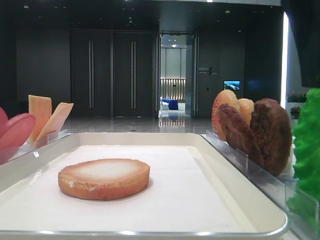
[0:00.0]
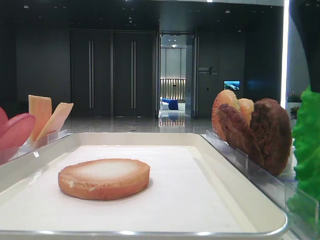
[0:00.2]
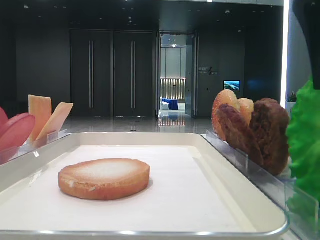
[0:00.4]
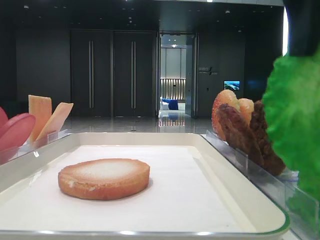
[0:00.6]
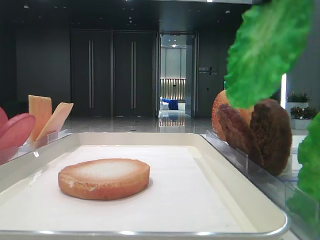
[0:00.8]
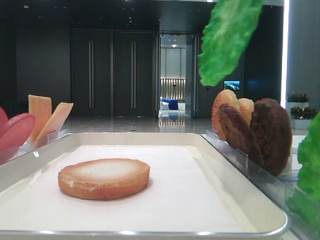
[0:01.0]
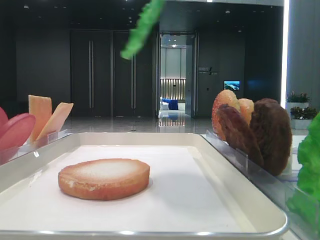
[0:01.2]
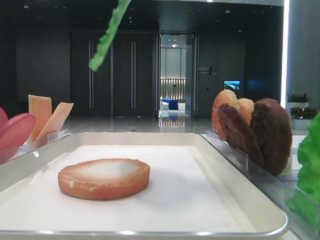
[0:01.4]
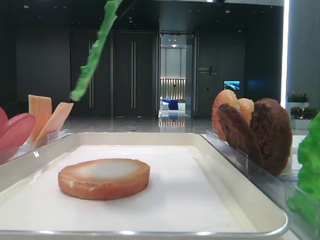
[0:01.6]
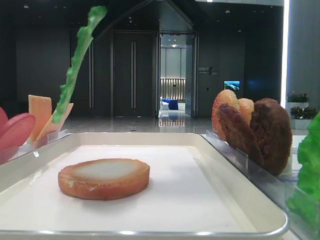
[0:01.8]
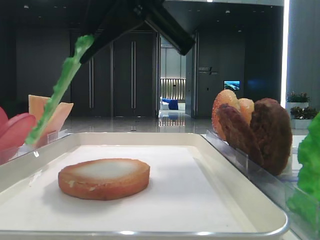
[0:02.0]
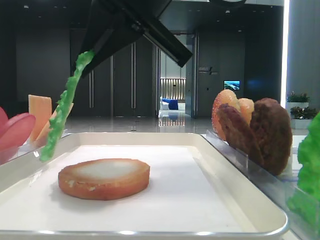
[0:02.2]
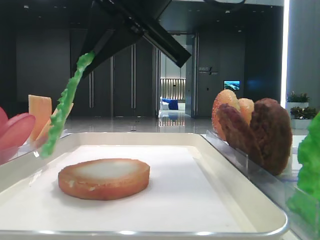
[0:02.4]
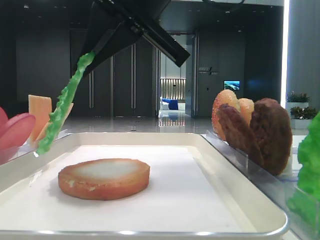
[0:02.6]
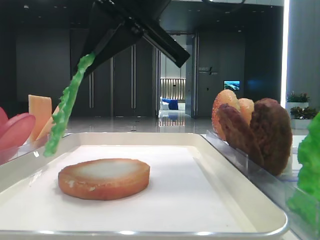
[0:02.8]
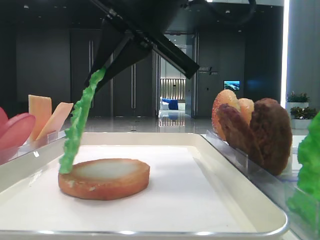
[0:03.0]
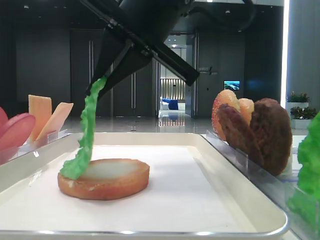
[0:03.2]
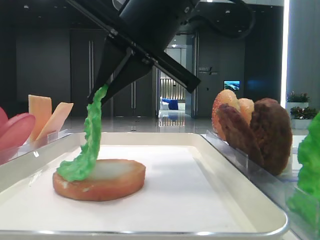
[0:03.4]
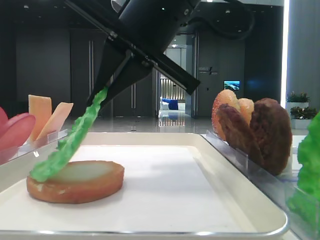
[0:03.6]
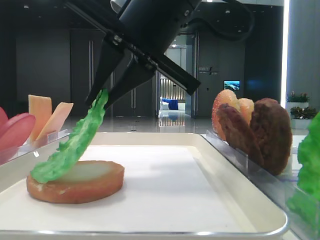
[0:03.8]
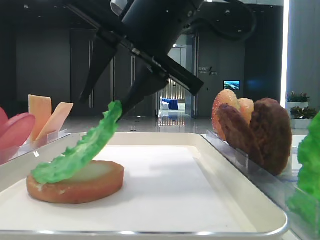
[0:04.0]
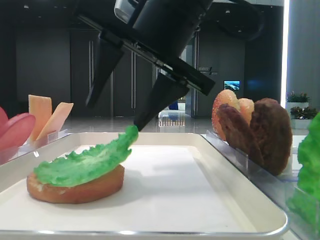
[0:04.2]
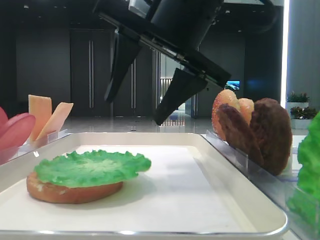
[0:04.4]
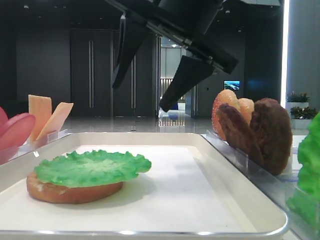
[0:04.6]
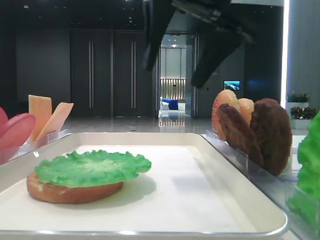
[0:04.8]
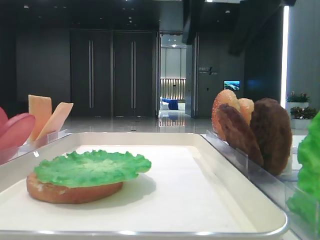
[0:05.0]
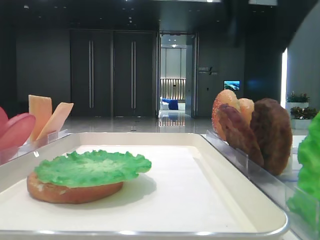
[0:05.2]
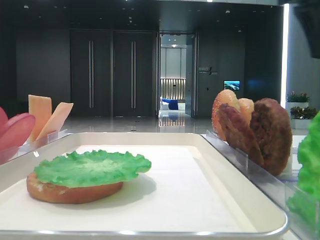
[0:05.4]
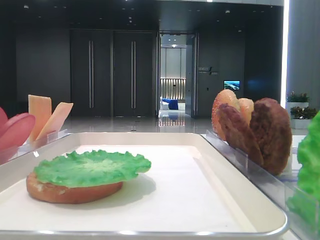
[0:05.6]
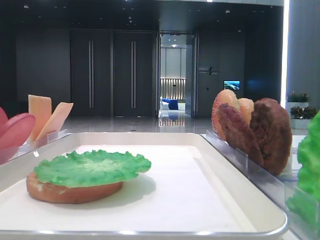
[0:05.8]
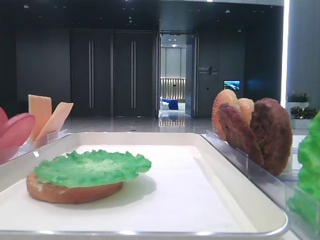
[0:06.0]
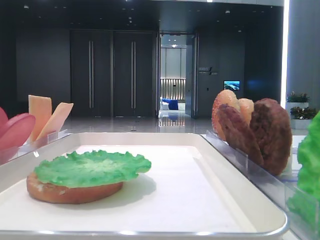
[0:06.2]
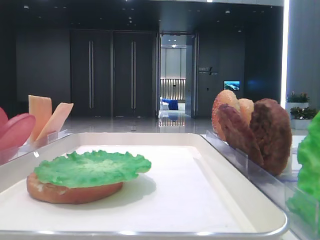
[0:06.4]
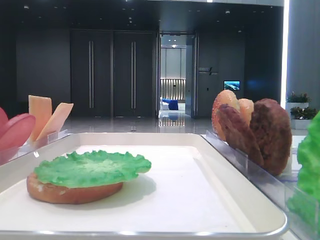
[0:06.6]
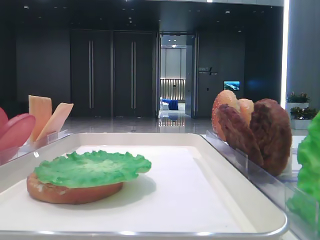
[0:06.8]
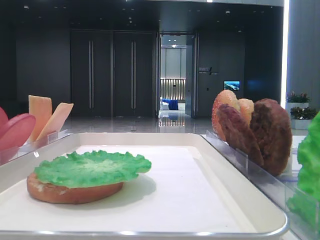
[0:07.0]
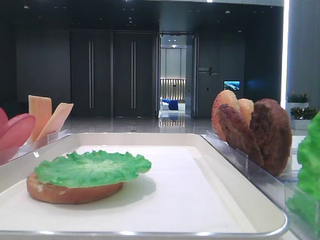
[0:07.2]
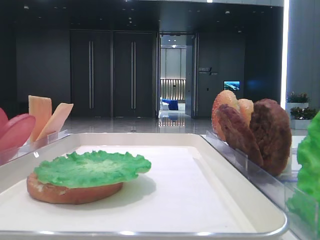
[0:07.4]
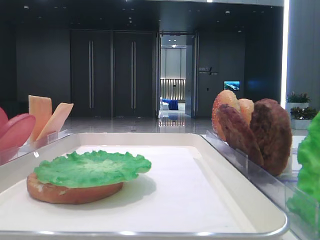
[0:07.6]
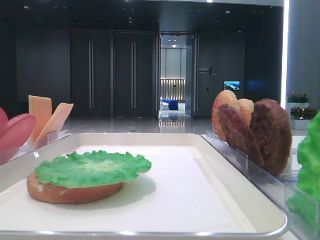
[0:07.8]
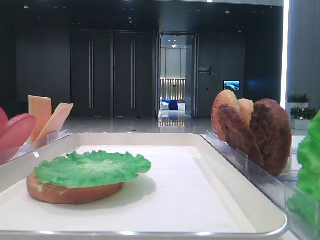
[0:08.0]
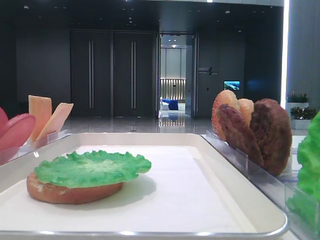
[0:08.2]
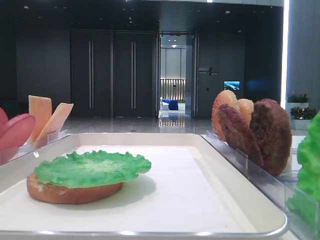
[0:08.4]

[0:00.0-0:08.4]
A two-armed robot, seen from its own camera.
Step, 0:00.4 to 0:04.2: Place the lettuce leaf on the bottom bread with the right hand.
0:00.0 to 0:01.4: The right gripper heads upward and to the left, covering roughly 10 cm, and closes up.
0:01.4 to 0:02.8: The right gripper shifts roughly 10 cm downward and to the left.
0:02.8 to 0:04.2: The right gripper opens.
0:04.2 to 0:05.6: The right gripper is displaced to the right by roughly 30 cm.

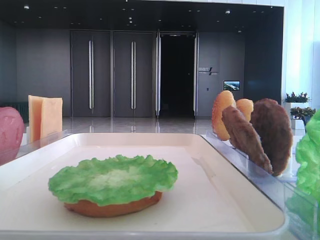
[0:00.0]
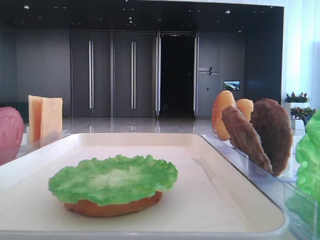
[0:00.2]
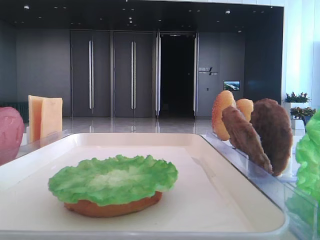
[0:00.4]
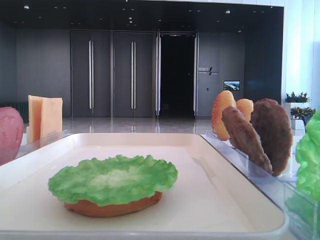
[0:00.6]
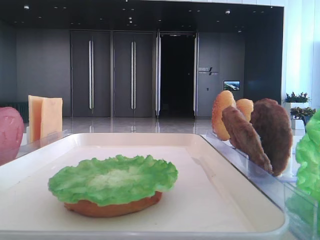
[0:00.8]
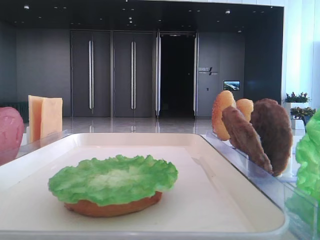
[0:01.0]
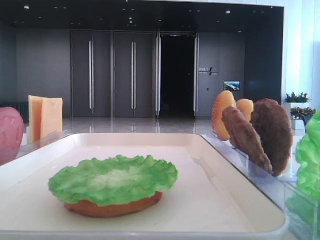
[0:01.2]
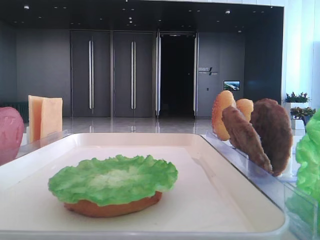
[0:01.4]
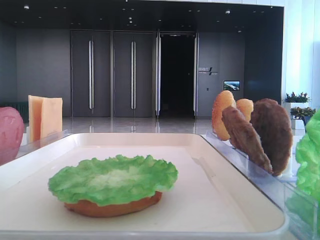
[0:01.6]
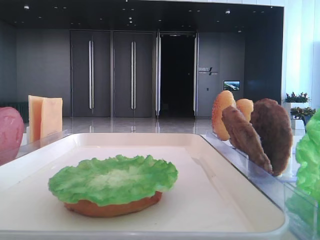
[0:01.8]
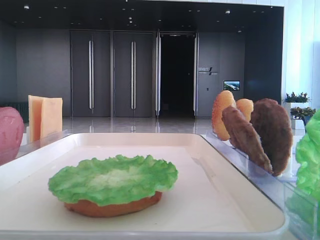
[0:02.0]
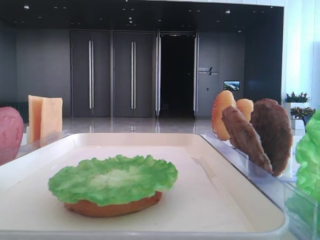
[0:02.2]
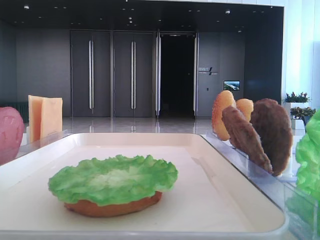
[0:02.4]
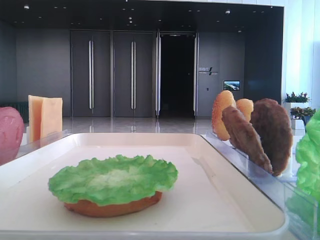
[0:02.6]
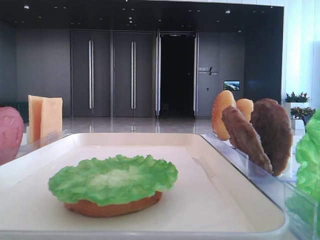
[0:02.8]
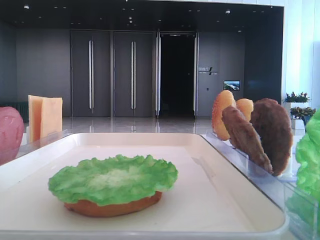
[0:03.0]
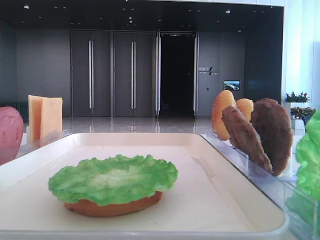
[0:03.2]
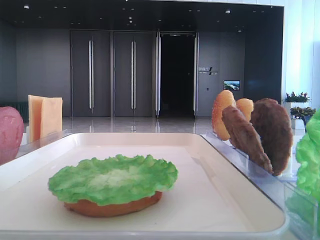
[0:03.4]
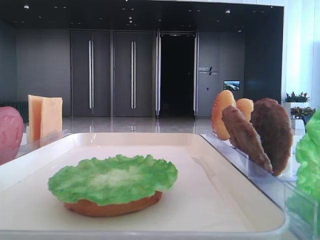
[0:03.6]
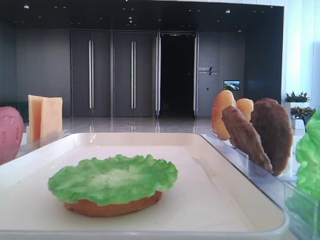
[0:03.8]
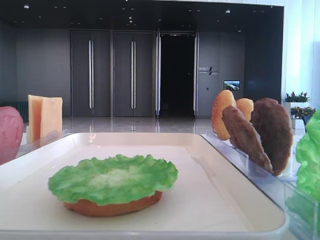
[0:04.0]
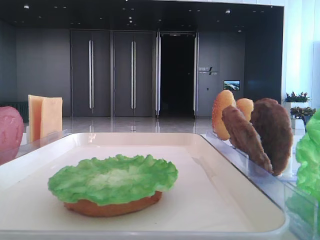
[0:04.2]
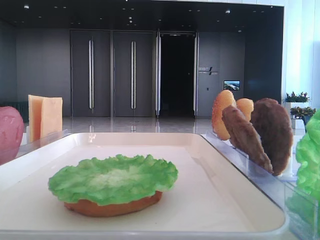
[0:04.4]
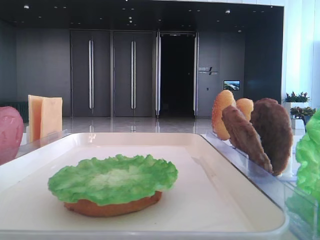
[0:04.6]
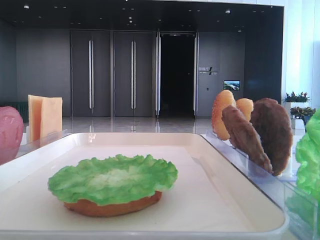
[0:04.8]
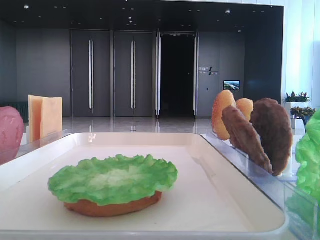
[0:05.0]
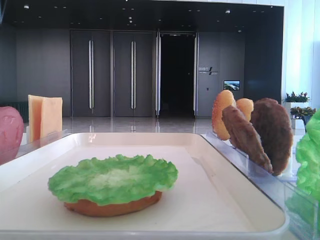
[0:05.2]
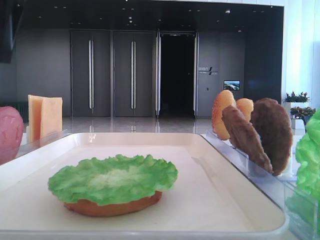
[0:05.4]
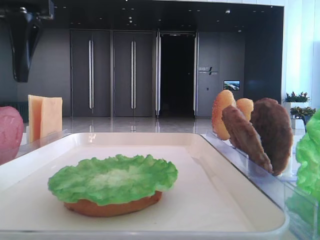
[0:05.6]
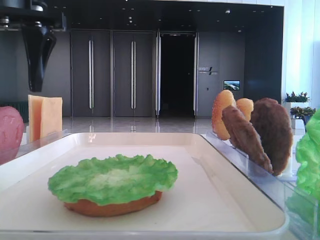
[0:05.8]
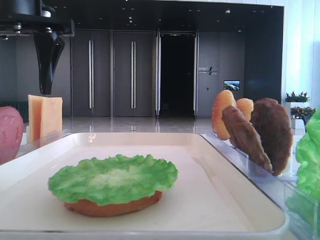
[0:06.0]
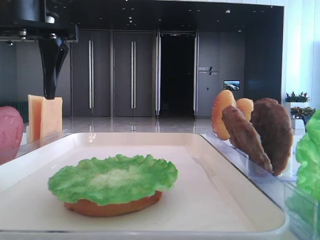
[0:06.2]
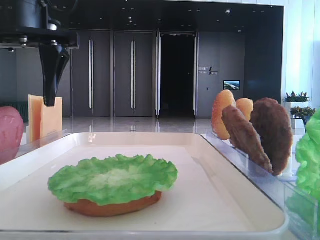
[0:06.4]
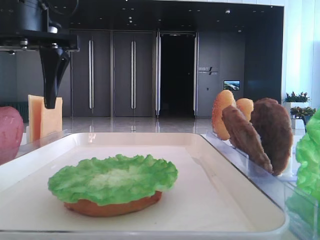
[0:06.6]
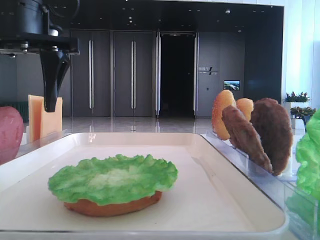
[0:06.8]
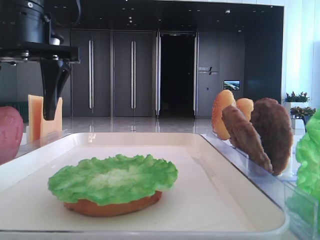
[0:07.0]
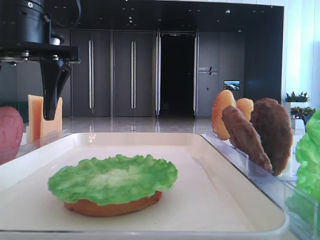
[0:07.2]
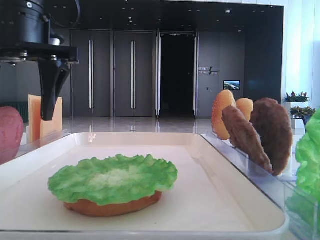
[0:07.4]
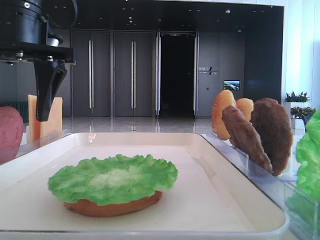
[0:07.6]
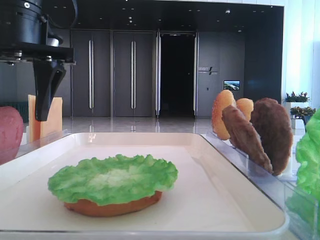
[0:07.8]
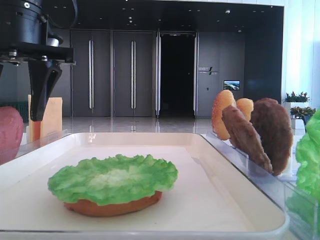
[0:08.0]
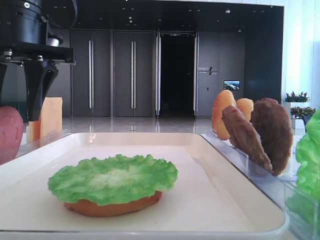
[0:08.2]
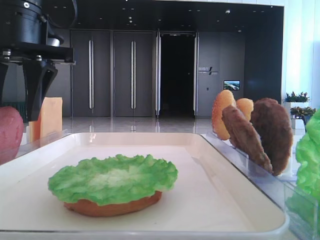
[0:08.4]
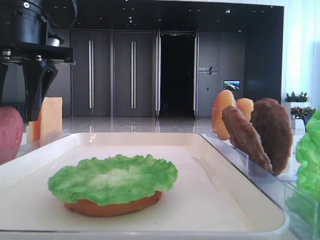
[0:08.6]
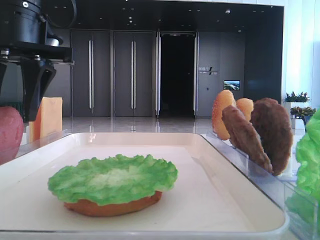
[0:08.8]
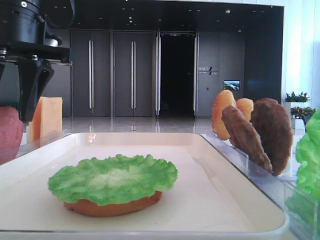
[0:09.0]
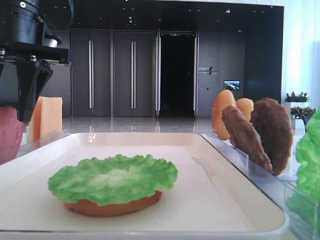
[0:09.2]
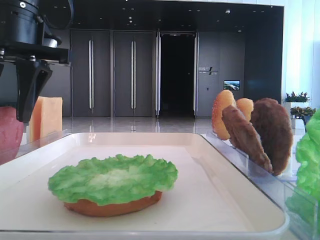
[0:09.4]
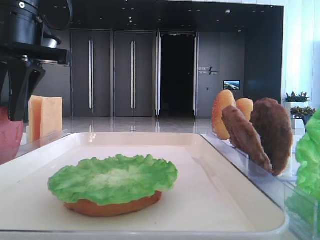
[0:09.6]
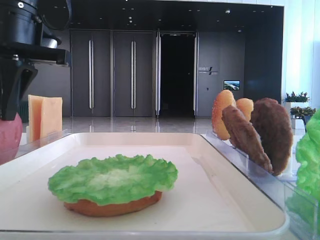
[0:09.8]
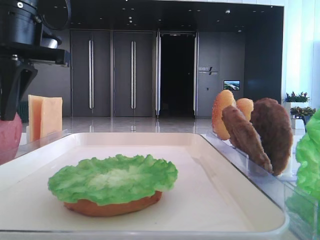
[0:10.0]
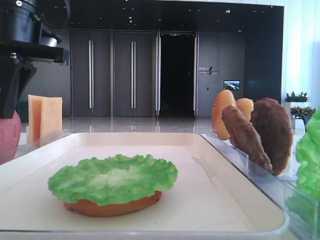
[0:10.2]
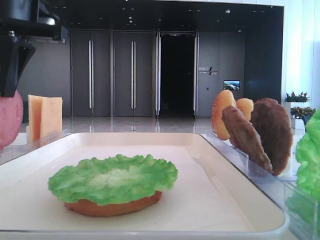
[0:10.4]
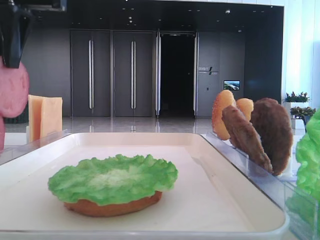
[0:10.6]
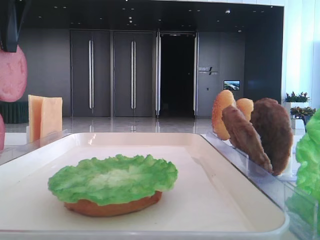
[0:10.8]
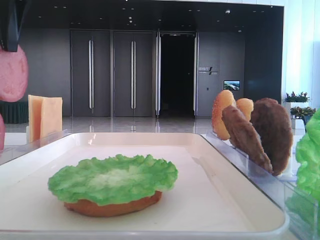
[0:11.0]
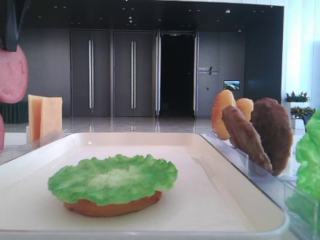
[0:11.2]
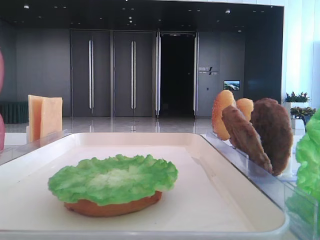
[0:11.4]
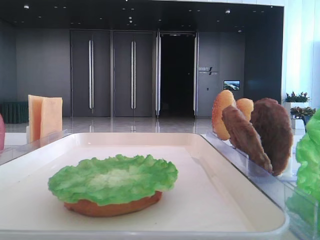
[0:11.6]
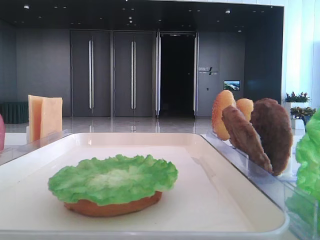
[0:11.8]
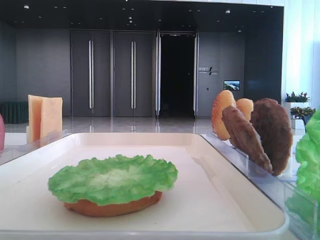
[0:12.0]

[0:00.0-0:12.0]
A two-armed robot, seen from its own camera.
Step, 0:00.0 to 0:10.0: Pick up the tomato slice with the left hand.
0:04.4 to 0:06.0: The left gripper moves to the right and downward, some 15 cm.
0:06.0 to 0:07.6: The grippers make only small movements.
0:07.6 to 0:09.0: The left gripper closes up.
0:09.0 to 0:10.4: The left gripper closes up.
0:10.4 to 0:12.0: The left gripper heads backward and upward, covering approximately 15 cm.

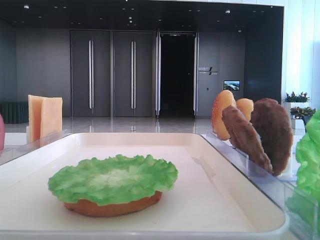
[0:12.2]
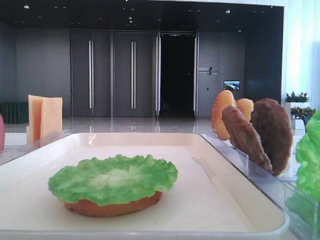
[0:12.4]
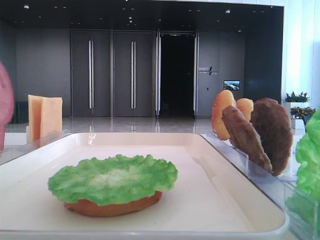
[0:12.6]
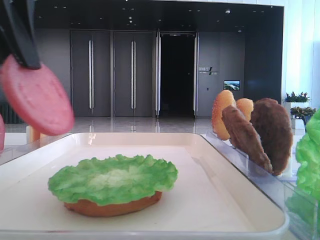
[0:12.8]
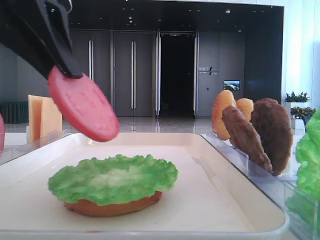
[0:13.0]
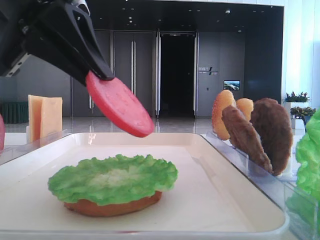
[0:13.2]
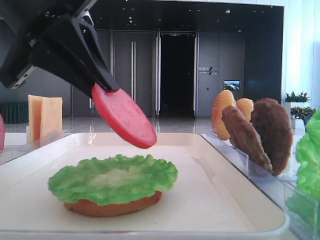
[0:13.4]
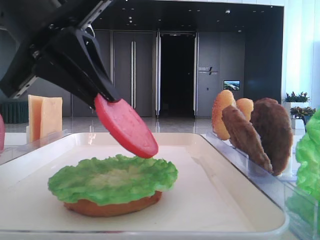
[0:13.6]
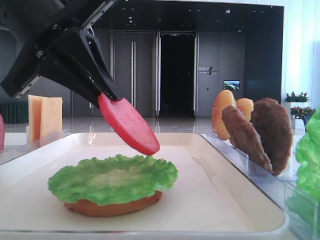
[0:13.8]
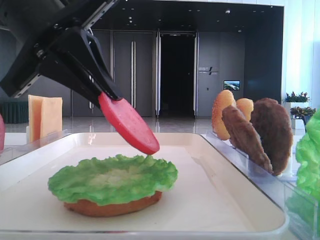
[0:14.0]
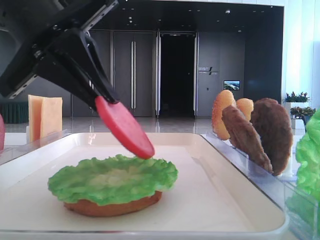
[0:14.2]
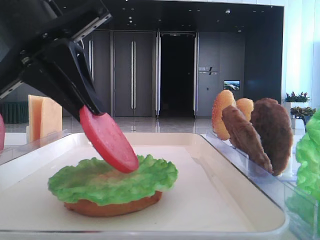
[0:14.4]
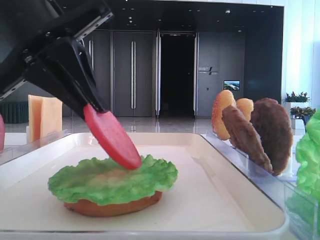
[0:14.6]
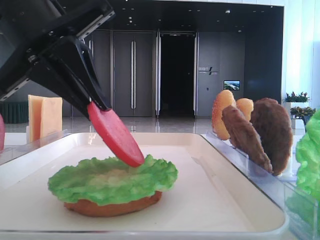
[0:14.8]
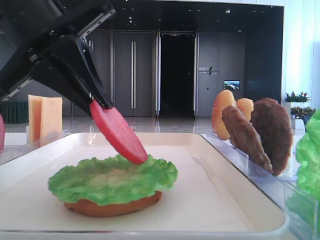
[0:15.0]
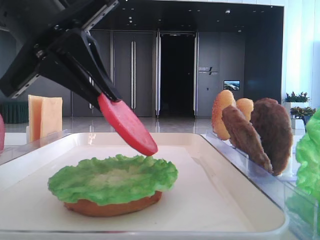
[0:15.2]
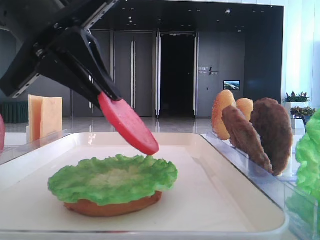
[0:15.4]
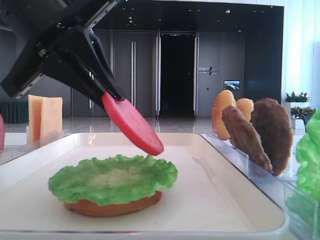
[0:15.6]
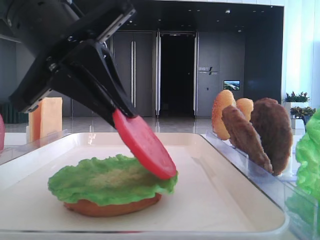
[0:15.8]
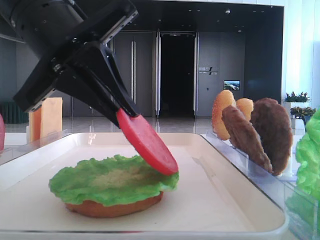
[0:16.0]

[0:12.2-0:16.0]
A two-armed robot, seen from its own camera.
0:12.2 to 0:13.4: The left gripper travels downward, to the right and forward by approximately 15 cm.
0:13.4 to 0:16.0: The grippers move only a little.
